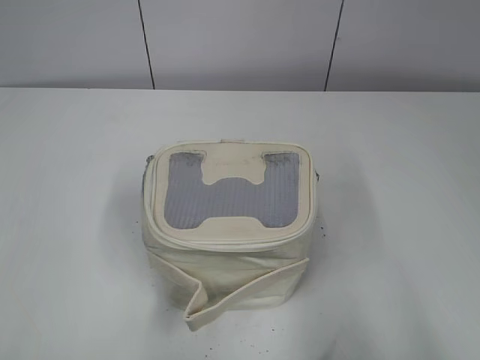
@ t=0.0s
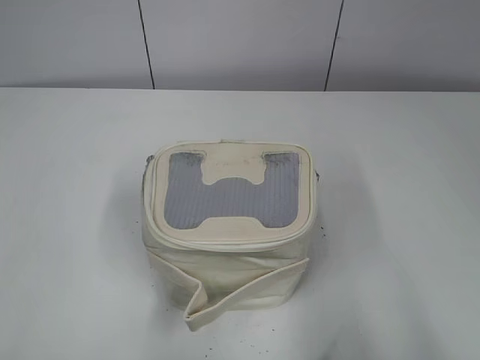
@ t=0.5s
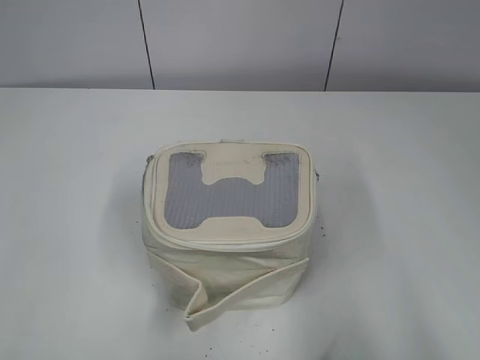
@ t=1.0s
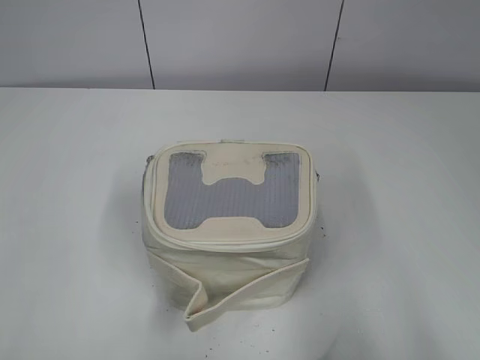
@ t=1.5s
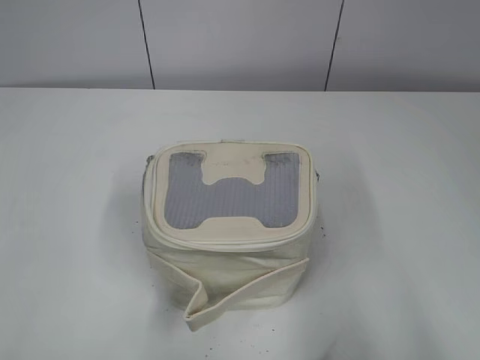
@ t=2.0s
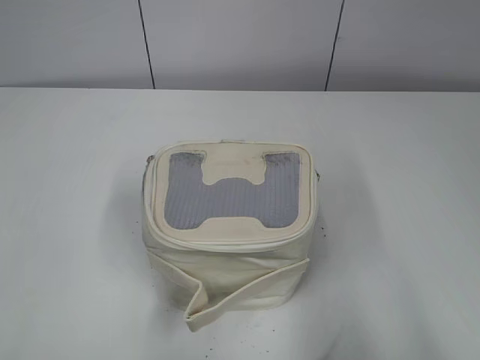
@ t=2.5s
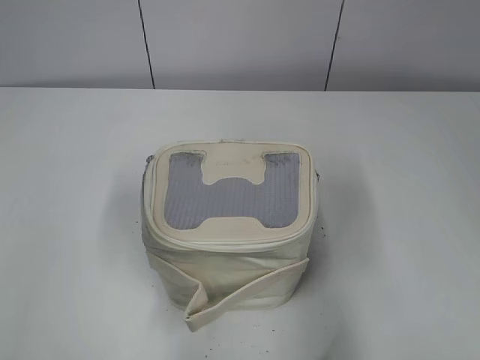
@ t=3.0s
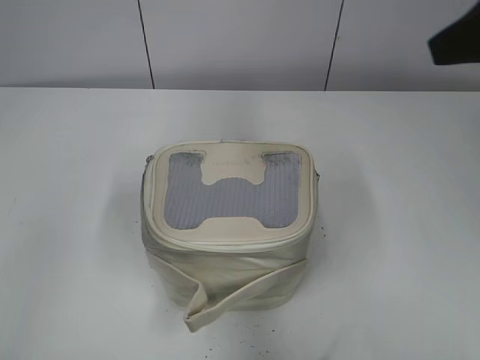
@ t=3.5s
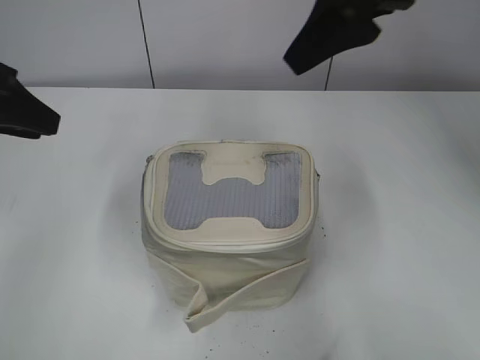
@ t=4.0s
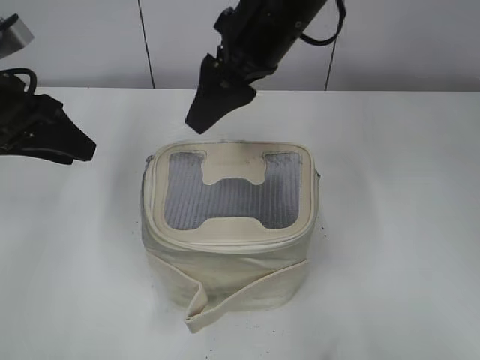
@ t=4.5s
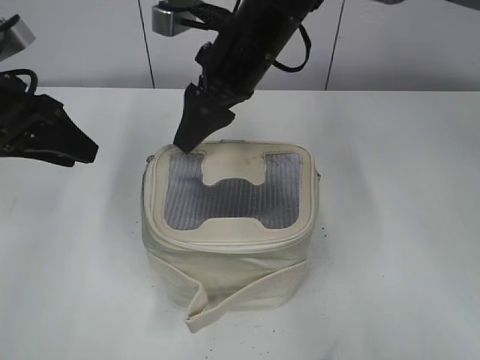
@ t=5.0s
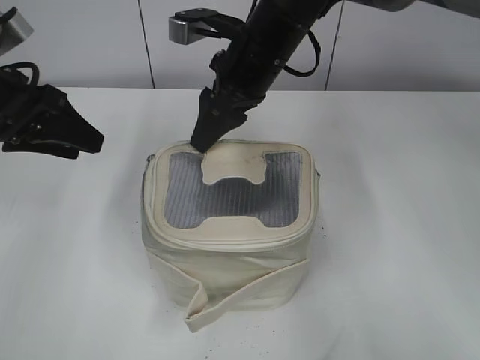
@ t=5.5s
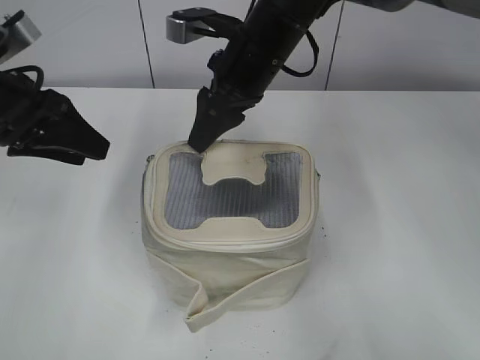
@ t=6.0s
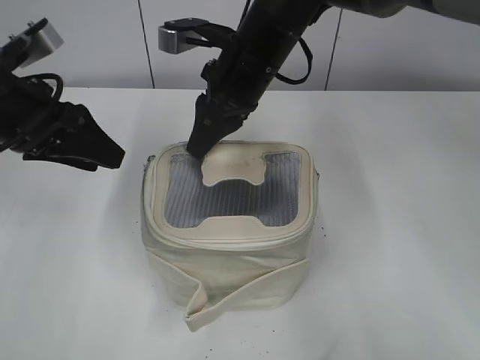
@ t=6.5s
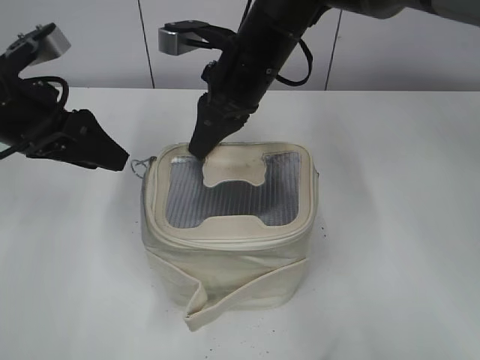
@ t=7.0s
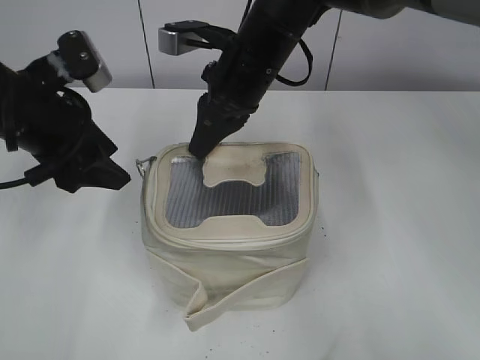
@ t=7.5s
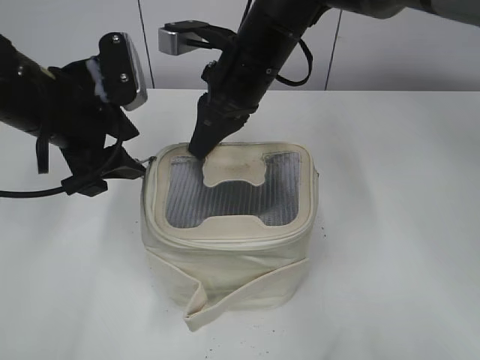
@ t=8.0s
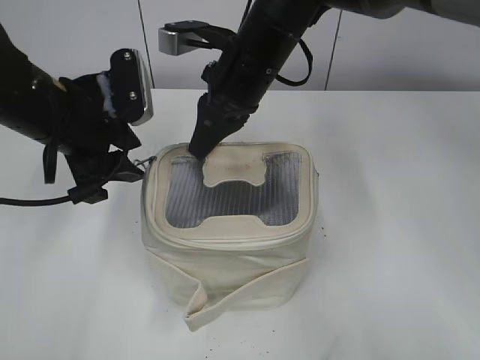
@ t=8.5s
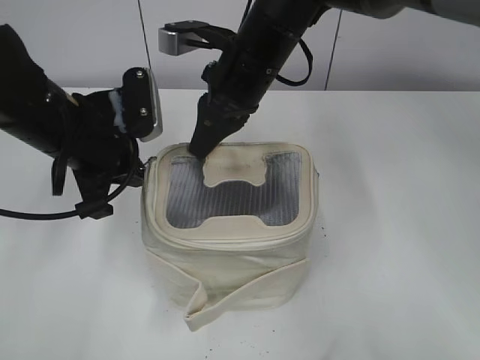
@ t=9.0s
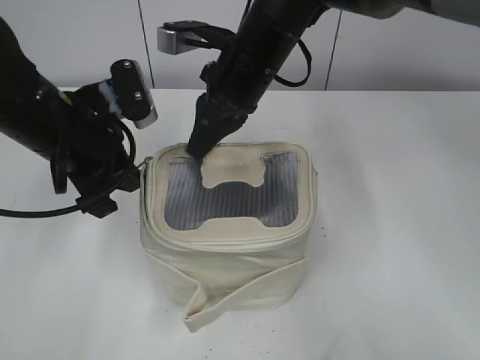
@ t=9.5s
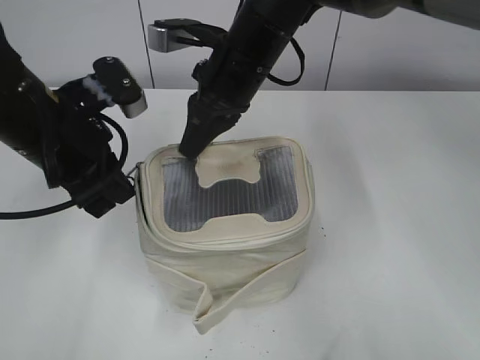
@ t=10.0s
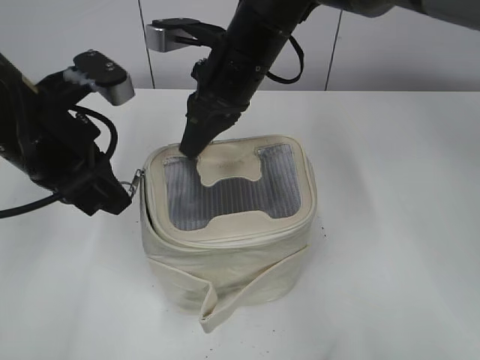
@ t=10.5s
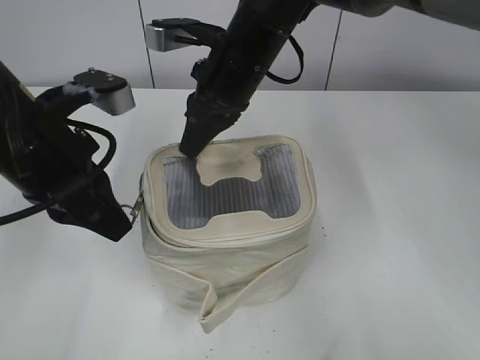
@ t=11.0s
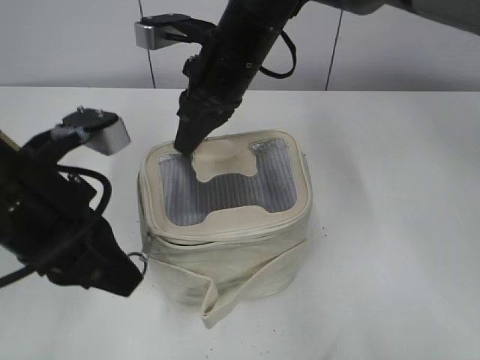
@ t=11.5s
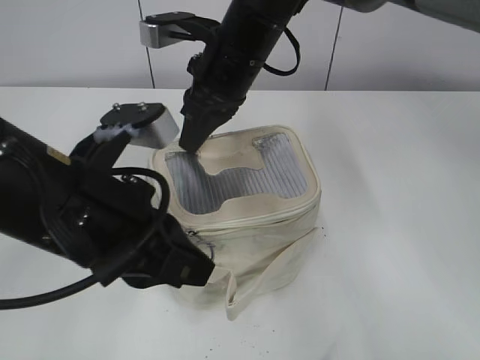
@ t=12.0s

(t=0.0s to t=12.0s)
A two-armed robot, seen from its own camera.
t=2.0s - t=4.0s: The left gripper is displaced forward by about 25 cm; the right gripper shifts roughly 35 cm forward and to the left.
t=4.0s - t=6.0s: The left gripper moves roughly 5 cm. The right gripper is displaced downward, to the left and forward by some 20 cm.
t=6.0s - t=8.0s: The right gripper closes up, while the left gripper is displaced to the right by some 5 cm.
t=8.0s - t=10.0s: The left gripper closes.
t=10.0s - t=12.0s: The left gripper travels backward and to the right by approximately 10 cm.

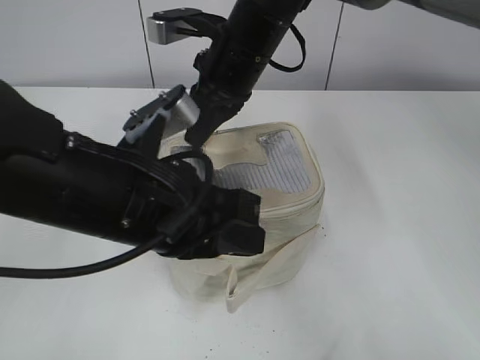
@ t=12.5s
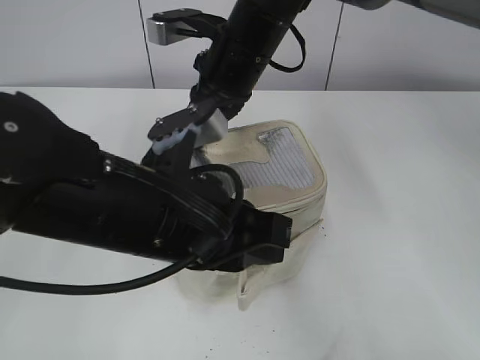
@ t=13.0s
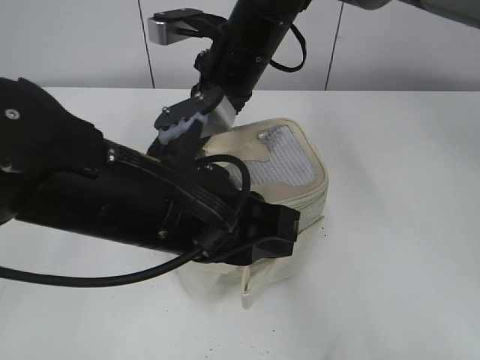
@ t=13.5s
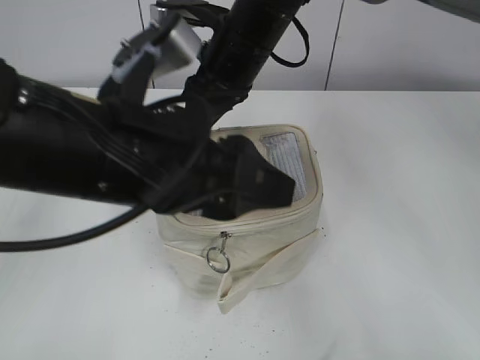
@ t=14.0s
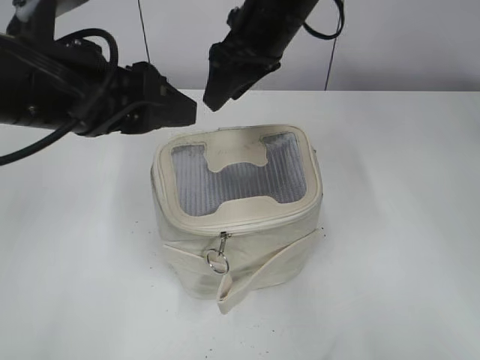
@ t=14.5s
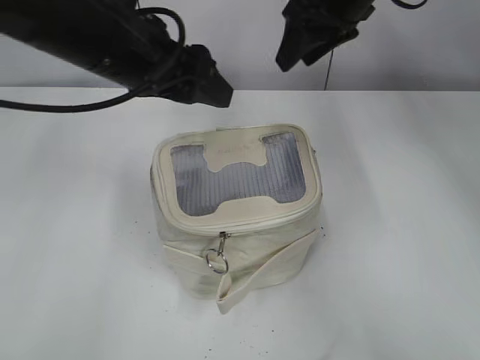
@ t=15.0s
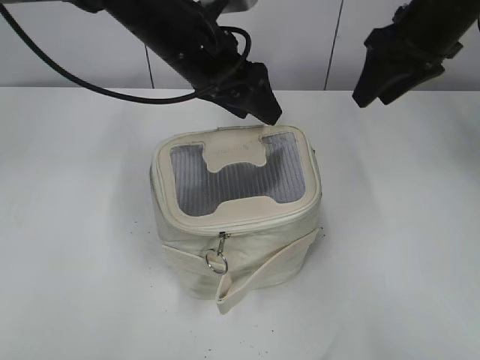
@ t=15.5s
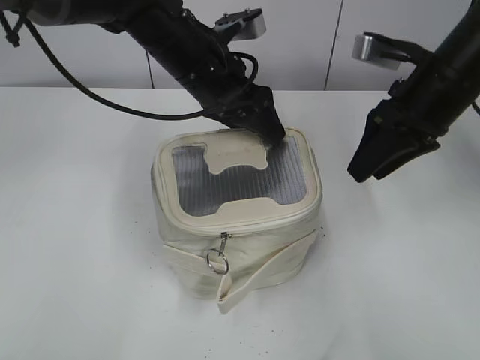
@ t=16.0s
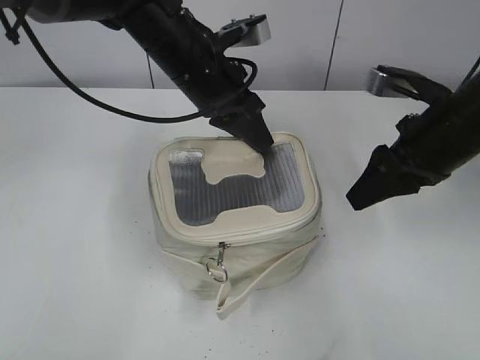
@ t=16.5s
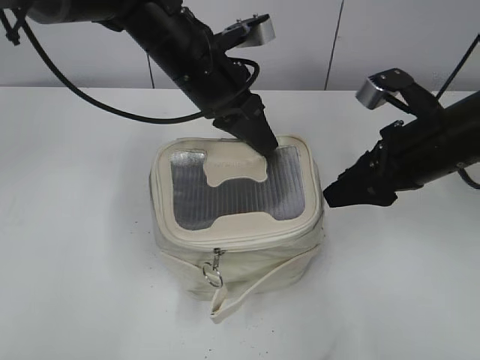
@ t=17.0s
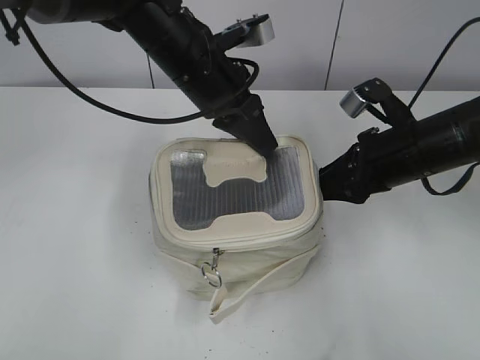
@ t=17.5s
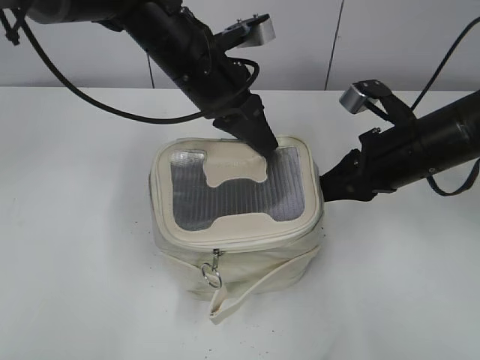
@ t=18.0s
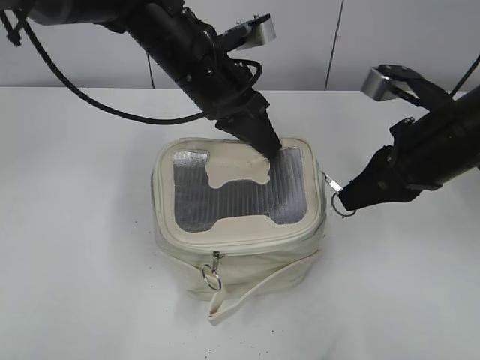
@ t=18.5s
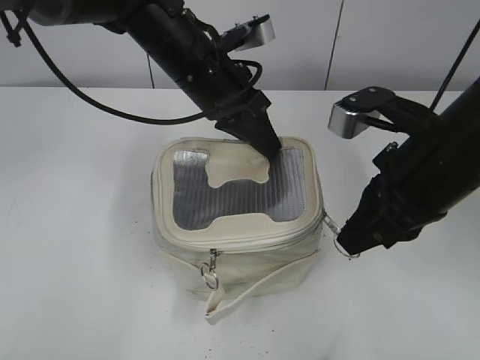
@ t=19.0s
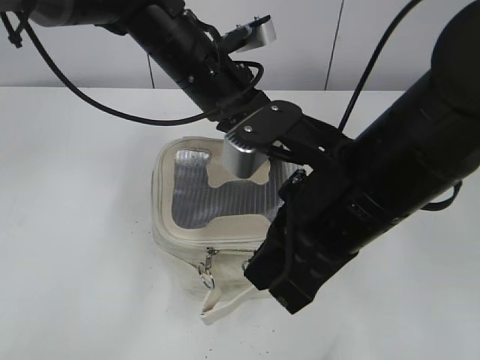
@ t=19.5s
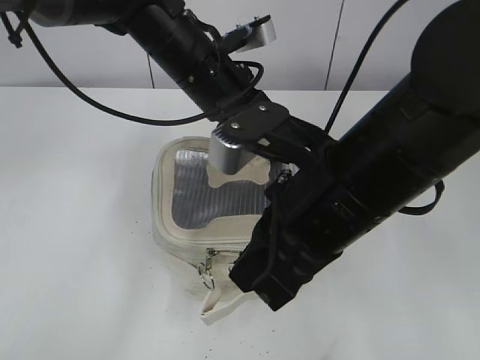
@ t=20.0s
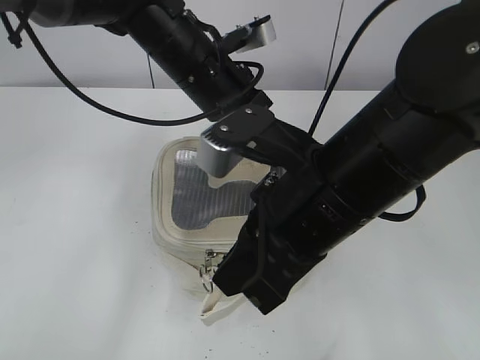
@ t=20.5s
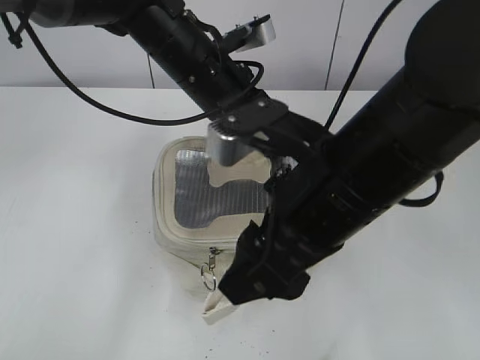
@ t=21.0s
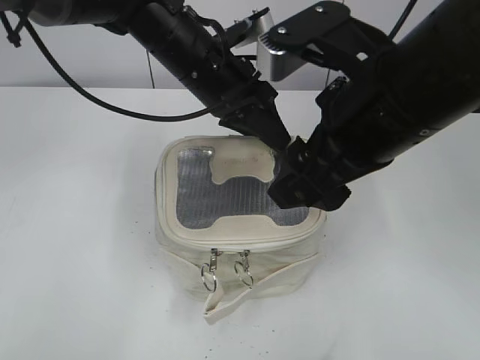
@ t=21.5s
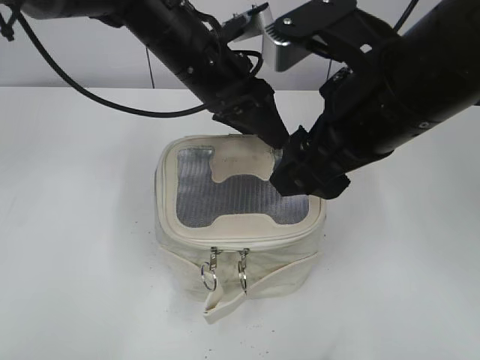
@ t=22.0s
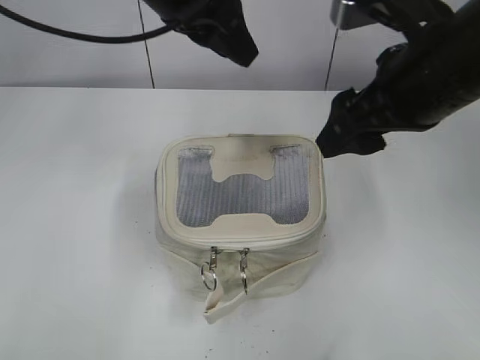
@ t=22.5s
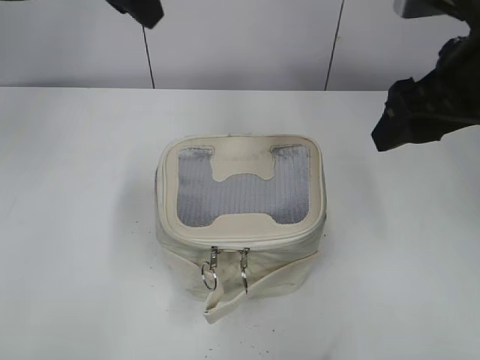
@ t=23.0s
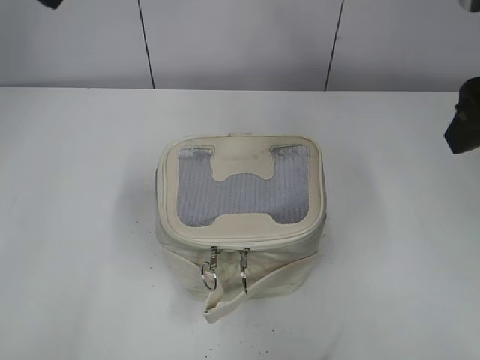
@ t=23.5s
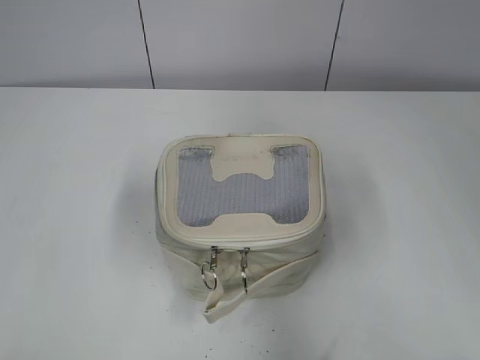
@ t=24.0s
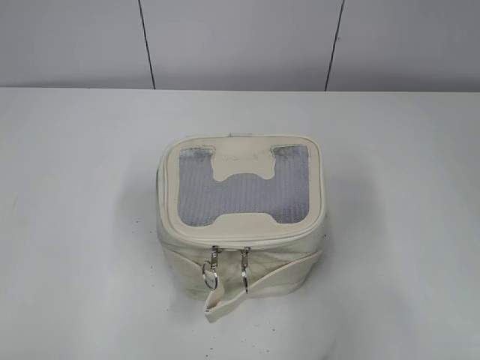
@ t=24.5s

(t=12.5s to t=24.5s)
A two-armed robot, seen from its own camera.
Step, t=14.5s - t=21.0s: Zip up the bag with your right hand.
Step, t=21.5s - t=22.0s: Hold the bag with your left hand.
t=12.5s - t=14.5s: The left gripper travels to the left, upward and forward by about 10 cm, and opens its fingers. The right gripper opens its fingers.
t=14.5s - t=16.5s: The left gripper heads forward, to the right and downward, covering about 20 cm, and closes, while the right gripper heads to the right and backward, covering roughly 20 cm.
t=16.5s - t=18.5s: The right gripper closes up.
t=18.5s - t=20.5s: The right gripper travels to the left and backward by roughly 15 cm.
t=20.5s - t=22.5s: The right gripper is displaced to the right, forward and upward by roughly 10 cm, and opens. Meanwhile the left gripper heads upward, covering about 10 cm, and opens up.
t=22.5s - t=24.5s: The left gripper shifts some 40 cm backward and to the left; the right gripper moves backward and to the right, some 20 cm.

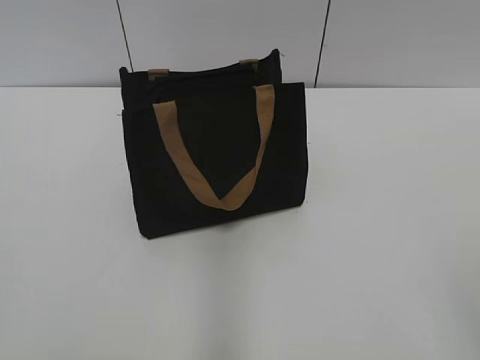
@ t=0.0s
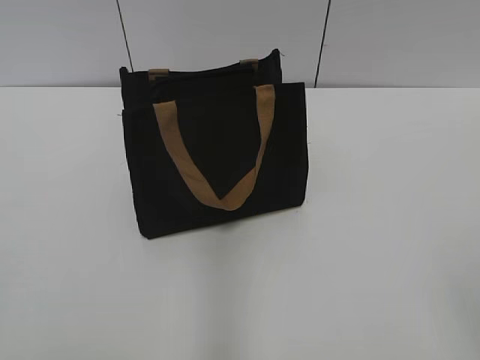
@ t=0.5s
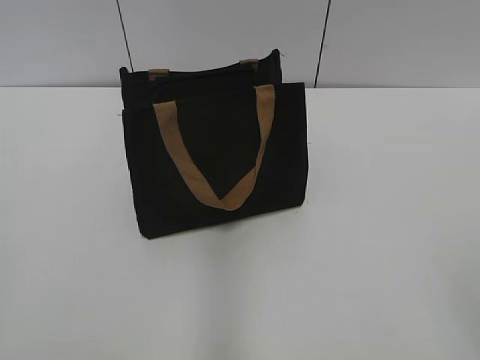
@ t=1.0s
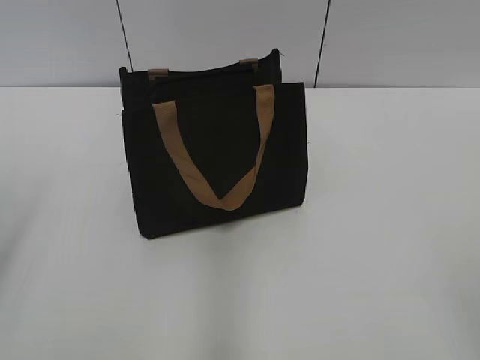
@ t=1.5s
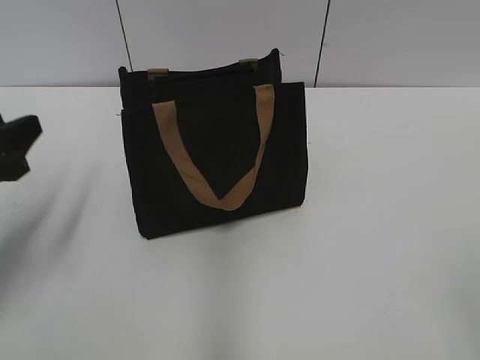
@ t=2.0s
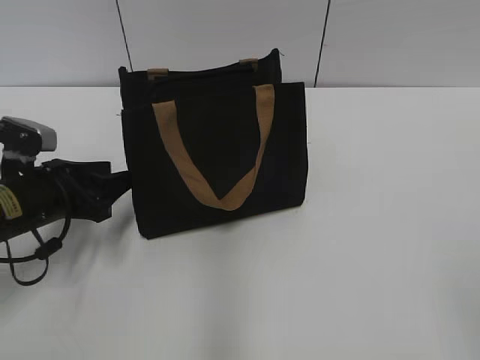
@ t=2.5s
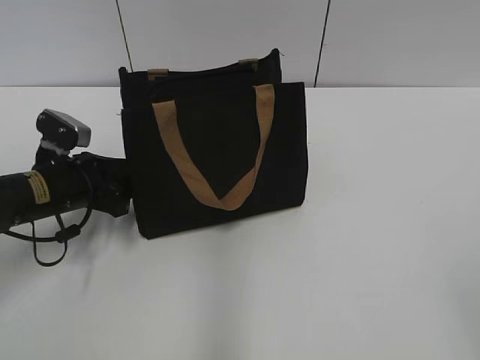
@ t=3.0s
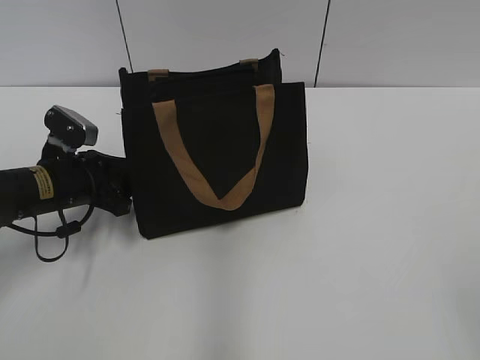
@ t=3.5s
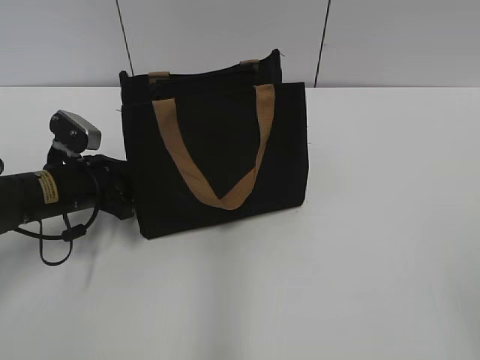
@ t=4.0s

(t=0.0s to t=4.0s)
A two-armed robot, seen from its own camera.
t=2.0s - t=4.0s: The left gripper shifts roughly 15 cm downward, forward and to the right.
